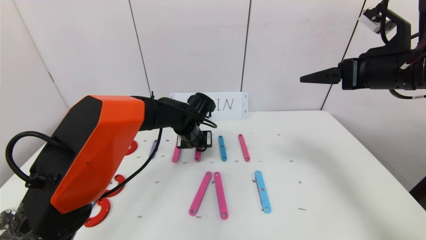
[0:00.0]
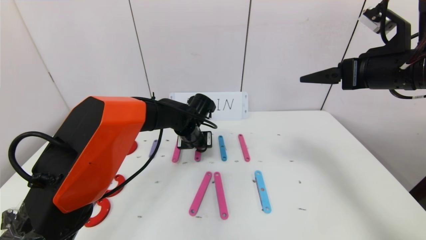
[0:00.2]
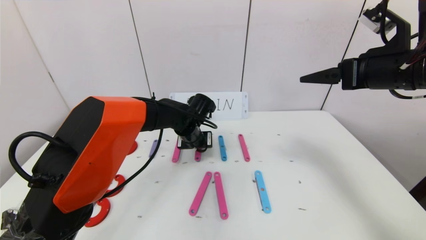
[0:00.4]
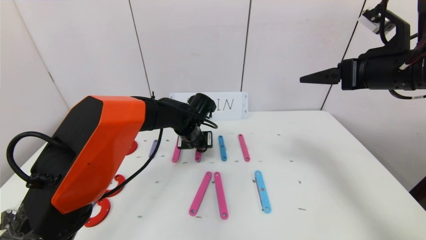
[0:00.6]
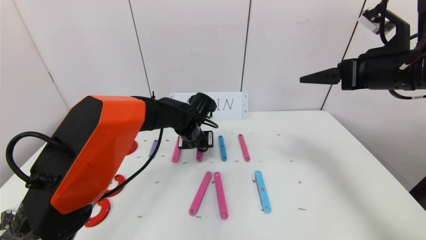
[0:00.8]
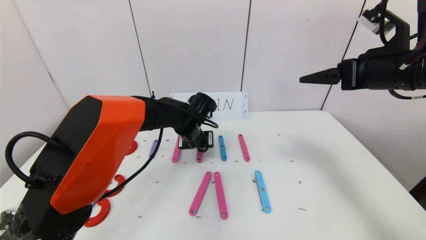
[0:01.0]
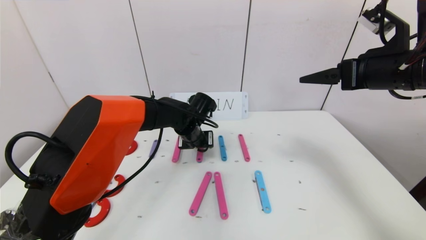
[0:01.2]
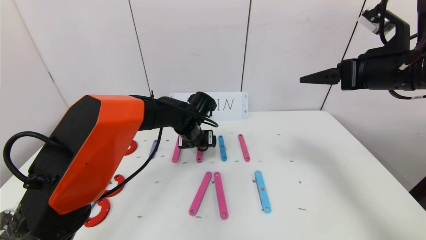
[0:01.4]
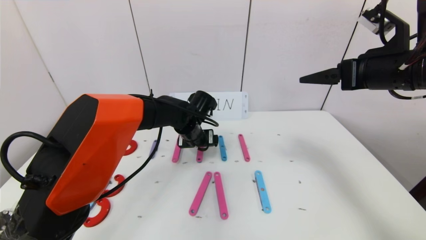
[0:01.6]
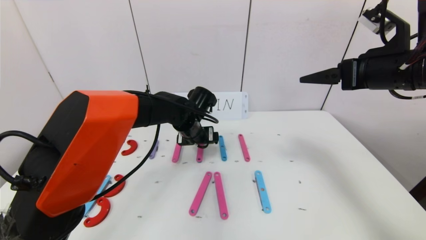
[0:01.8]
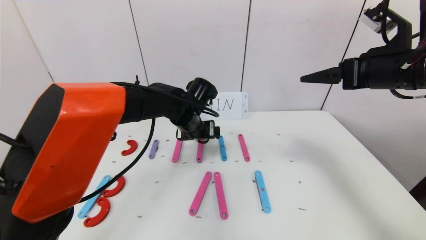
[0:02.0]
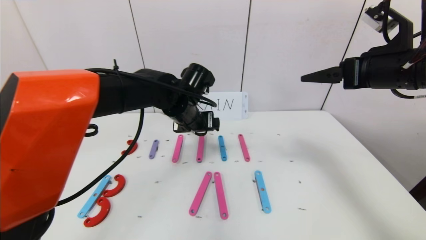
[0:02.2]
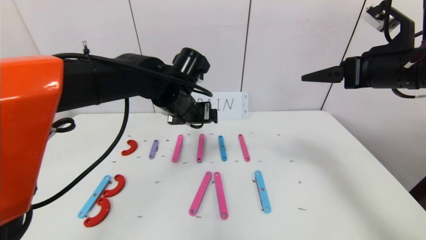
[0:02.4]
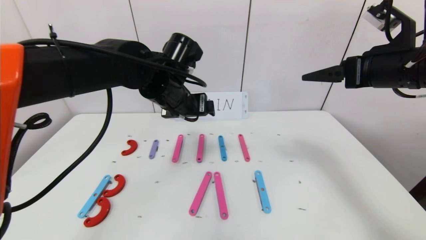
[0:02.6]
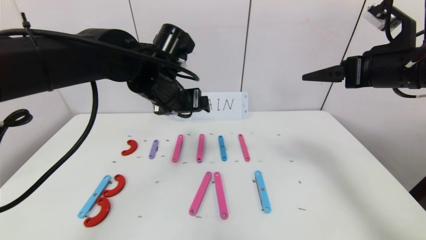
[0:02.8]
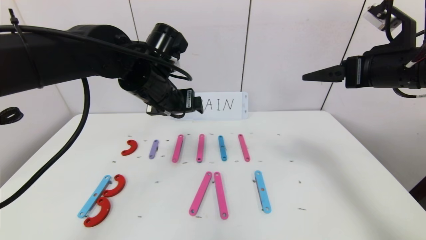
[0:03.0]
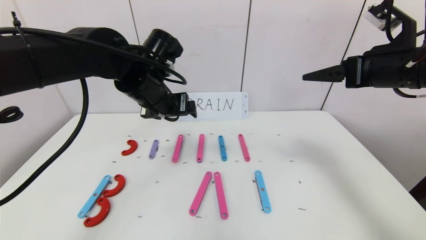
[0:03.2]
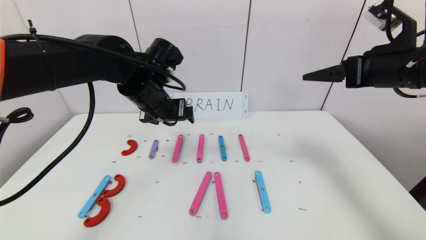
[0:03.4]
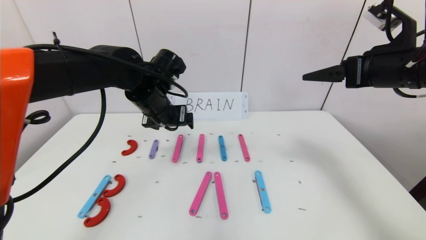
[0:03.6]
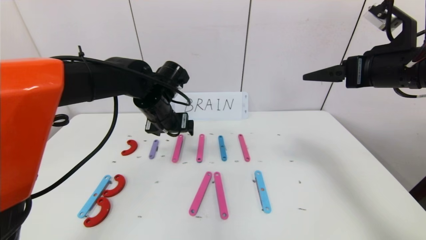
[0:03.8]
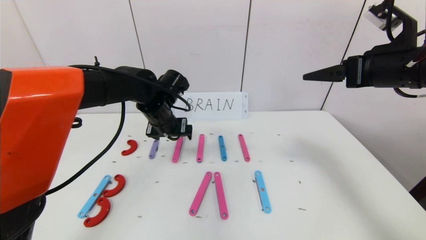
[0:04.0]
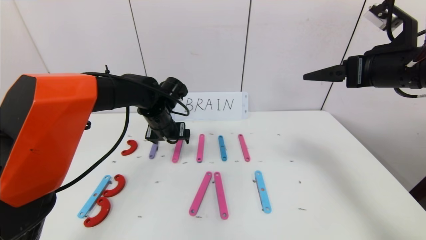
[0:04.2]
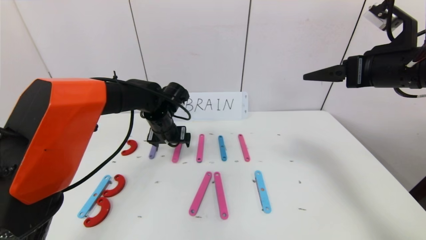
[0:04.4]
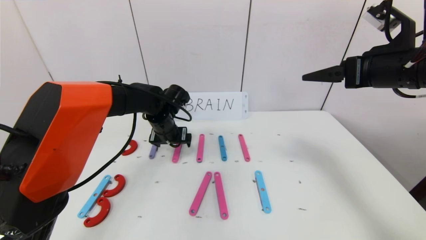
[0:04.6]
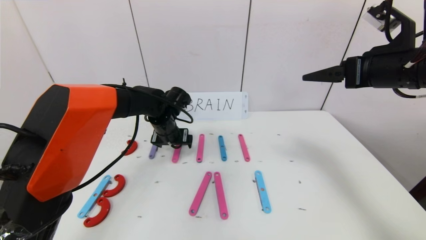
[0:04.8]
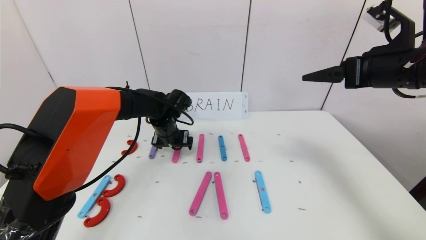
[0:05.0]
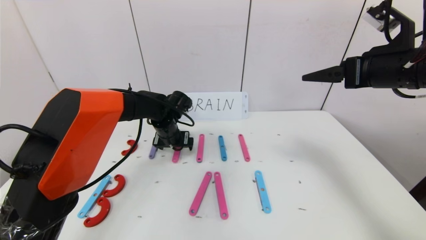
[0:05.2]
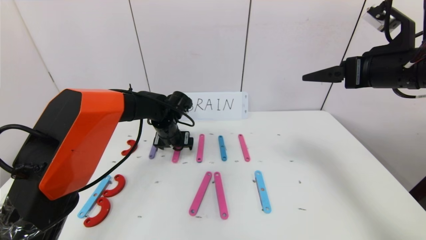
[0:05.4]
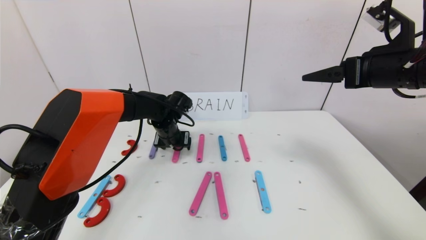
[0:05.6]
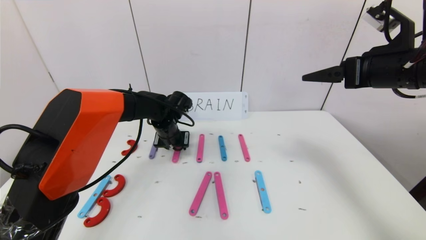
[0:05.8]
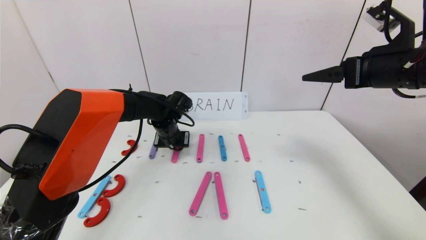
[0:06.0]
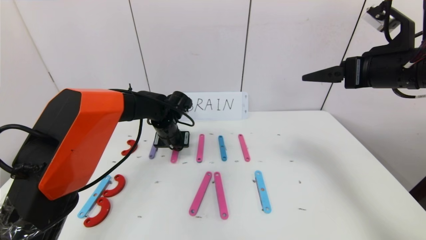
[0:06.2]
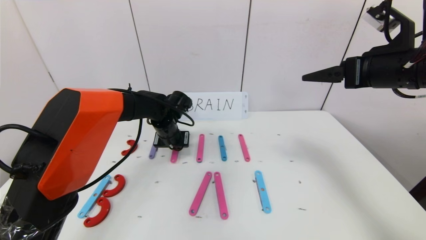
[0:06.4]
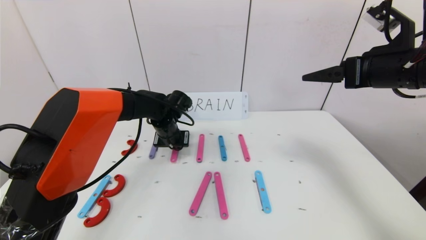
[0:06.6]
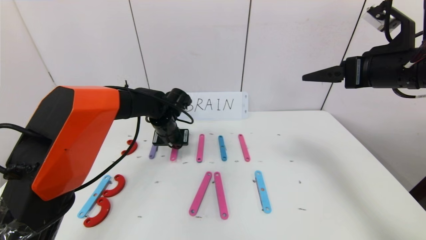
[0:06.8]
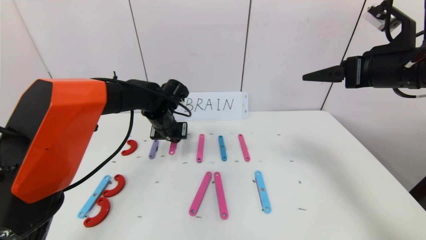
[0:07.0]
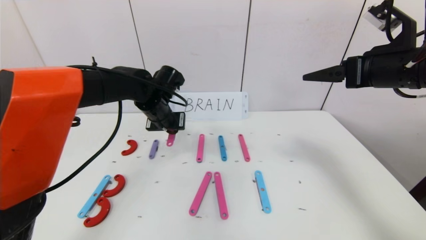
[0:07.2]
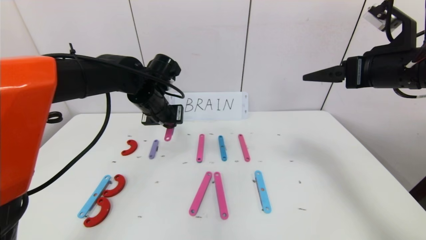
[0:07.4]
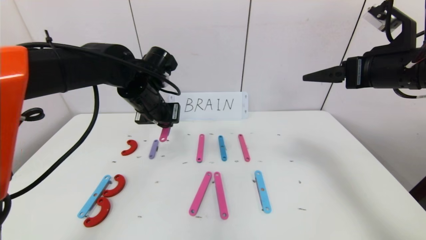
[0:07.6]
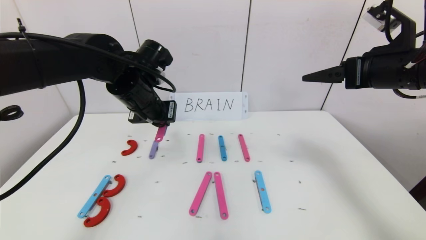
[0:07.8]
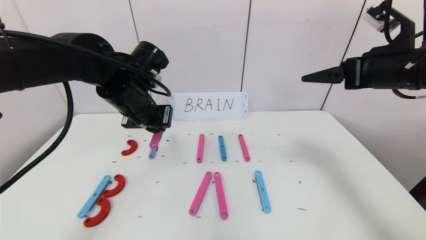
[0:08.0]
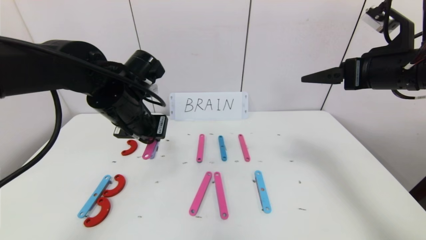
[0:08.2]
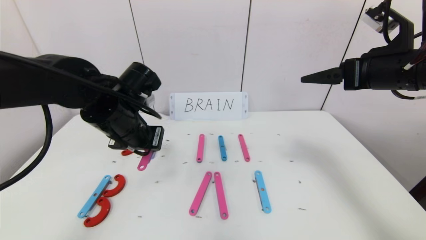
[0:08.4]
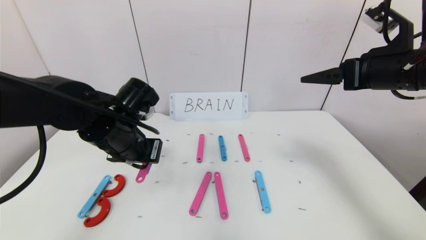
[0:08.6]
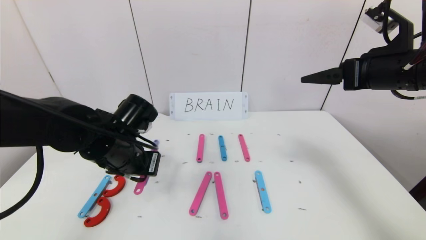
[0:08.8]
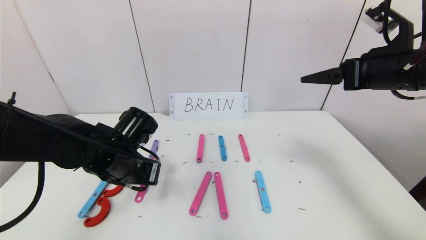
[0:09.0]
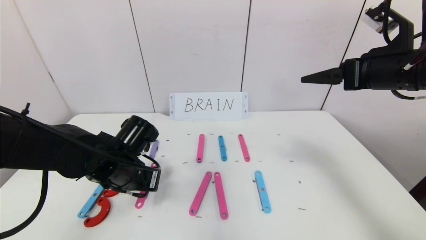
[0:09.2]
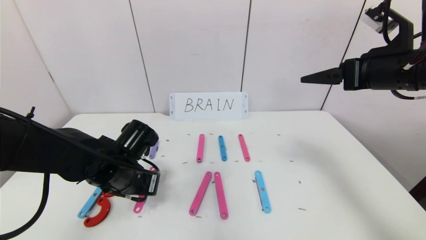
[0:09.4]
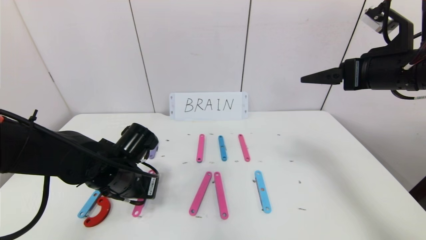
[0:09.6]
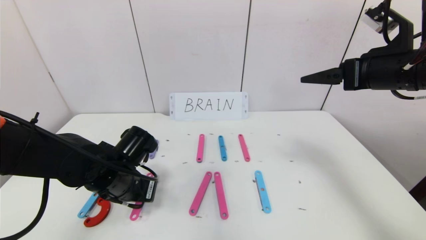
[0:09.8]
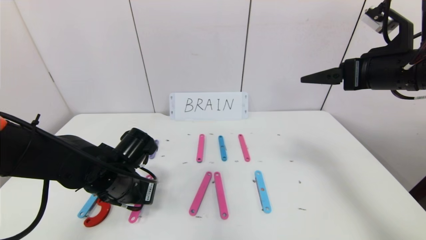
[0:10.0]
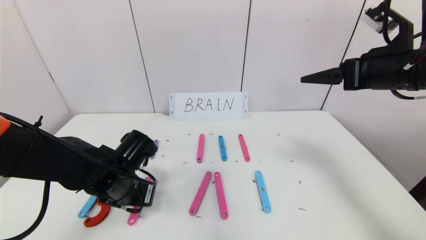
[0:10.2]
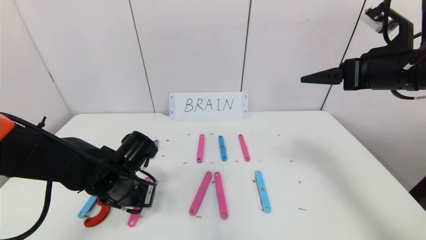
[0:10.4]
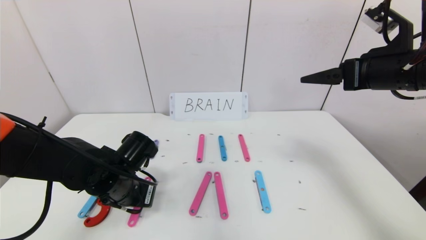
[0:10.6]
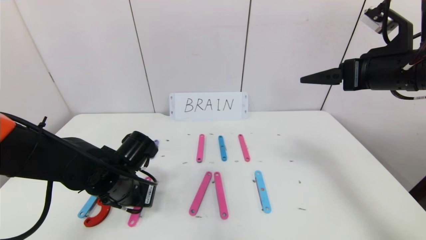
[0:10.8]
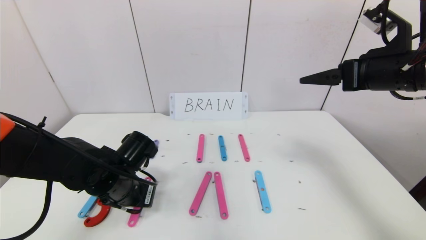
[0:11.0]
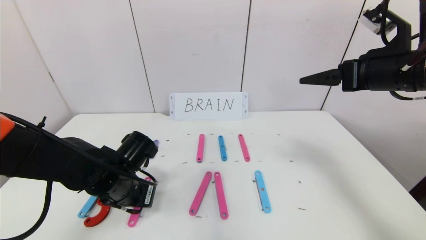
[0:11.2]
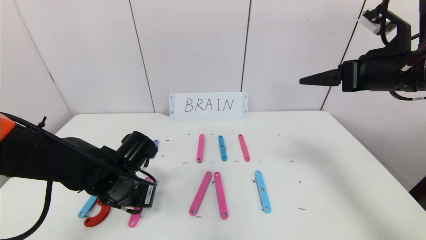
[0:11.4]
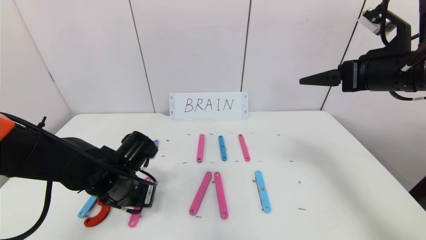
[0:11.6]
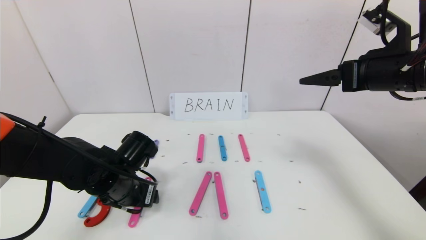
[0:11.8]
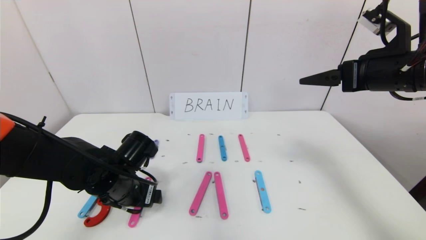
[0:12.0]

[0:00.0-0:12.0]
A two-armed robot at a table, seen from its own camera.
Task of the whole recording: rearrange the word baai as brain.
0:00.0 to 0:01.6: The left gripper opens up.
0:01.6 to 0:03.0: The left gripper moves upward and backward, about 15 cm.
0:03.0 to 0:04.4: The left gripper moves downward and forward, some 15 cm.
0:04.4 to 0:06.0: The left gripper closes up.
0:06.0 to 0:07.6: The left gripper goes roughly 15 cm upward and backward.
0:07.6 to 0:09.0: The left gripper travels downward and backward by about 15 cm.
0:09.0 to 0:10.4: The grippers make only small movements.

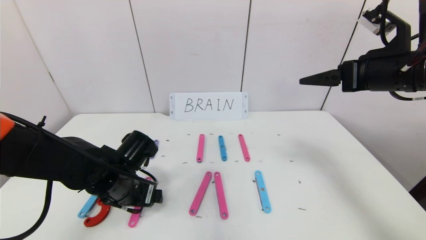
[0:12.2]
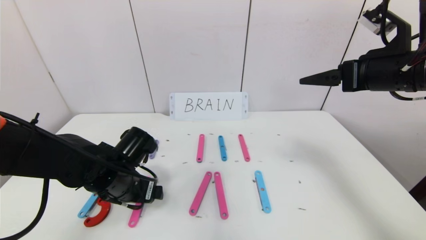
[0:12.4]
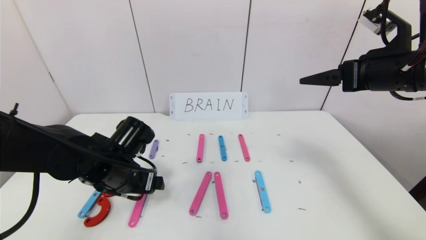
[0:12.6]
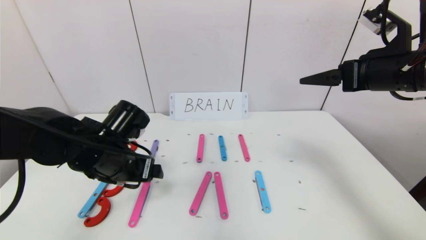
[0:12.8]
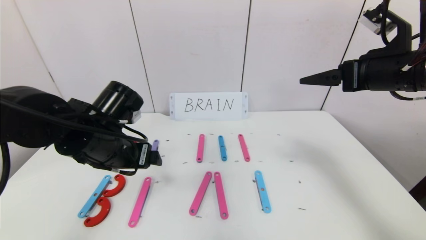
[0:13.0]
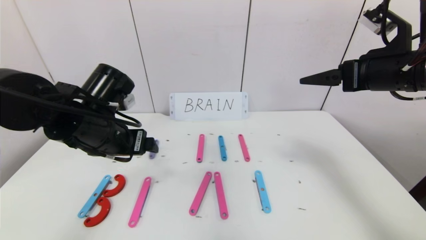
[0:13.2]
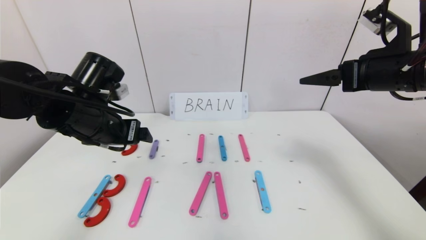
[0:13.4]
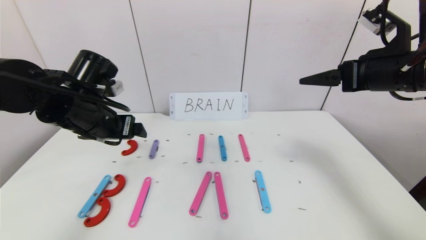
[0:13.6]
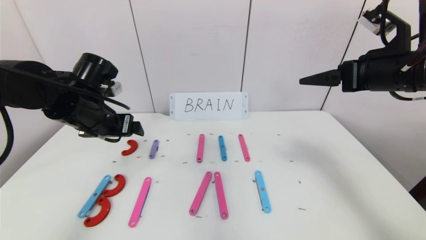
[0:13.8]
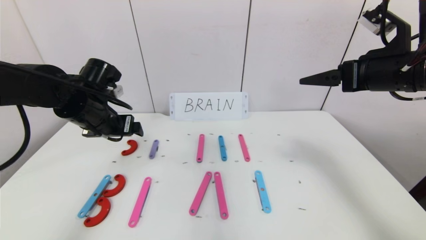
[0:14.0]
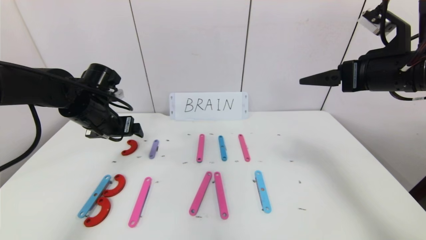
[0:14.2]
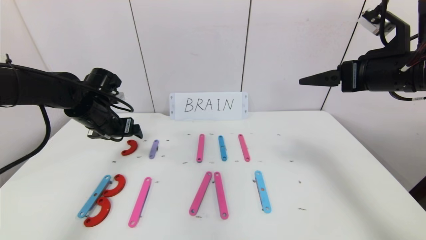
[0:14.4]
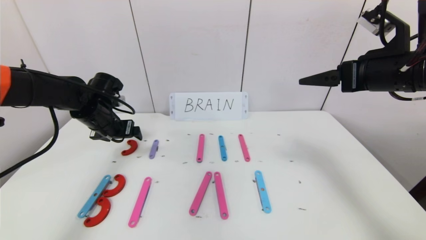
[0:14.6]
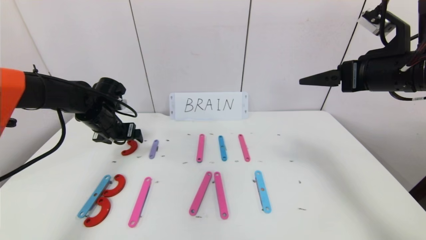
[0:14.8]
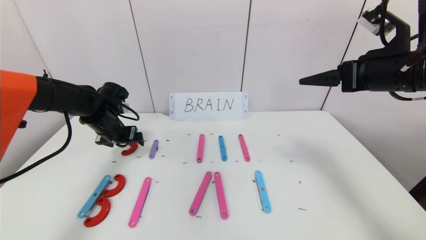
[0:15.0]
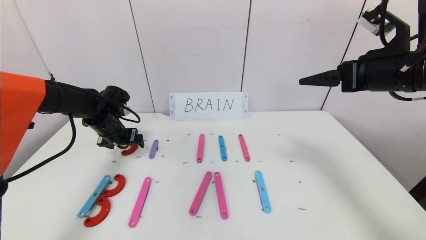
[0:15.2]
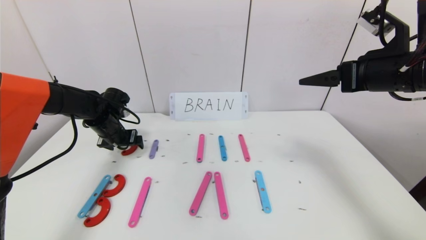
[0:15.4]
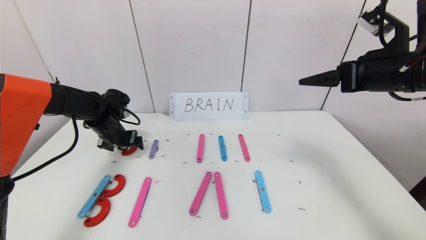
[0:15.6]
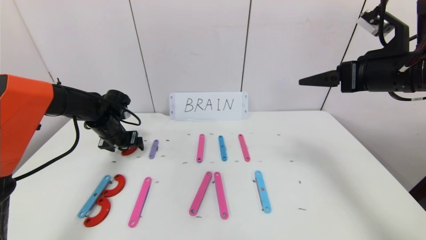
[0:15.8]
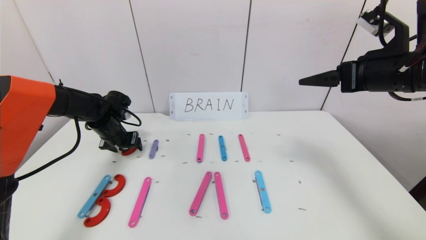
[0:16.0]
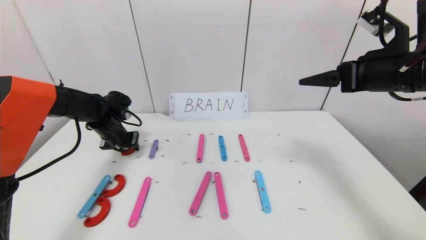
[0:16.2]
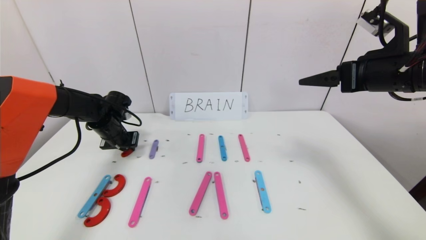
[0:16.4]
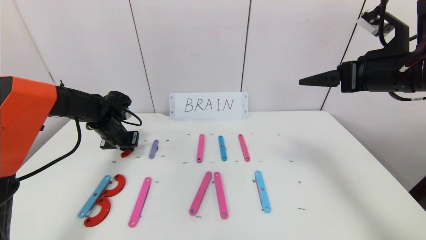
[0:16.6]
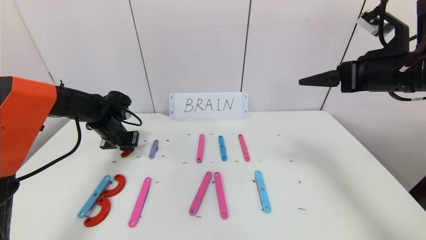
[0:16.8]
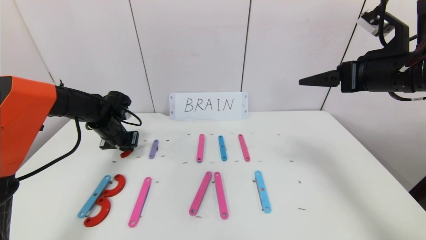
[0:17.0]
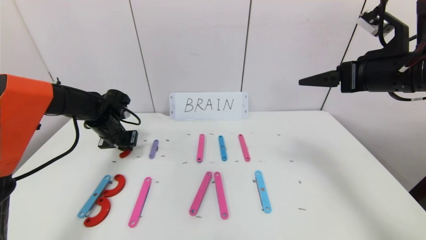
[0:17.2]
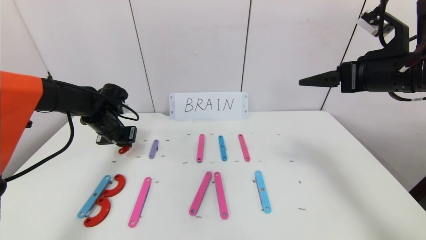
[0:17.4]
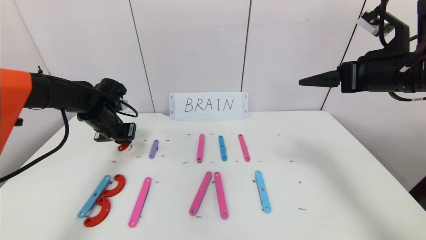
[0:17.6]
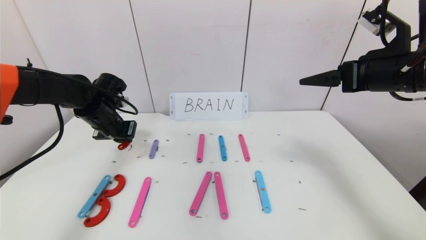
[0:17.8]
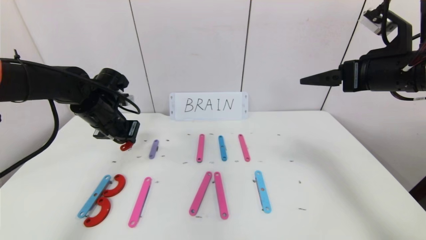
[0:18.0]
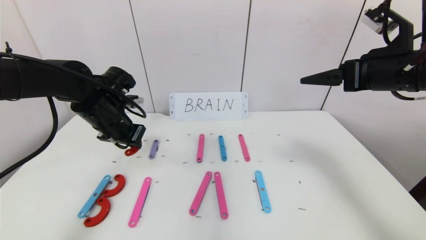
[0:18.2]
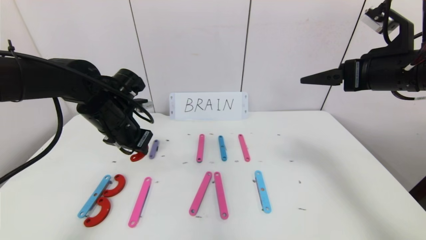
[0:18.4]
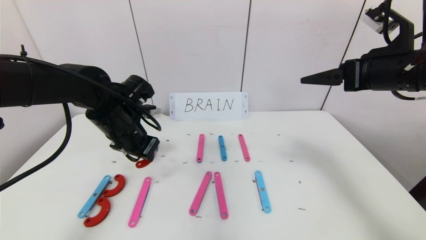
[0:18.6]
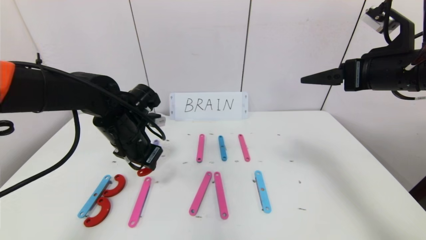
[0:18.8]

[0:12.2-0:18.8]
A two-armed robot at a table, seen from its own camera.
Task of the whole recording: rearrange the word baai as brain.
0:12.2 to 0:13.8: The left gripper travels upward, forward and to the left by approximately 15 cm.
0:13.8 to 0:15.4: The left gripper heads forward and downward, covering about 15 cm.
0:15.4 to 0:17.2: The left gripper closes up.
0:17.2 to 0:18.8: The left gripper travels to the right, backward and upward by about 15 cm.
